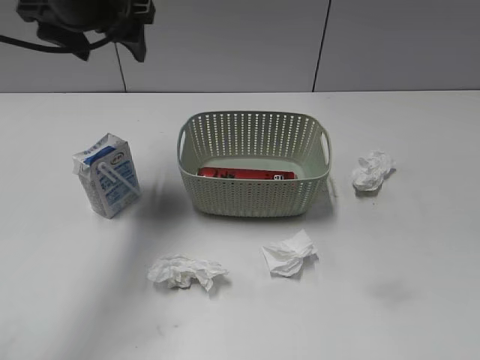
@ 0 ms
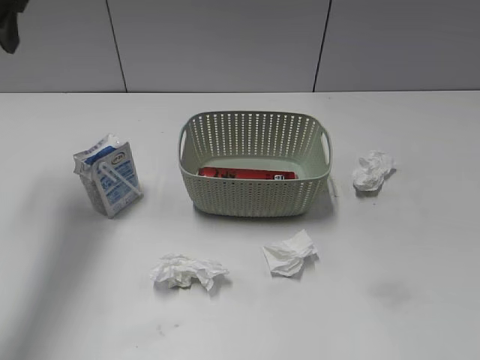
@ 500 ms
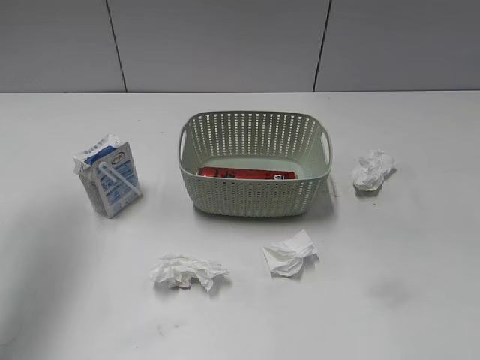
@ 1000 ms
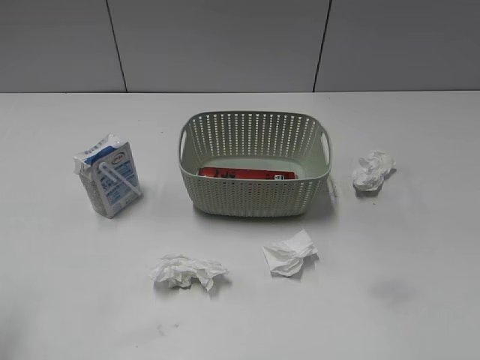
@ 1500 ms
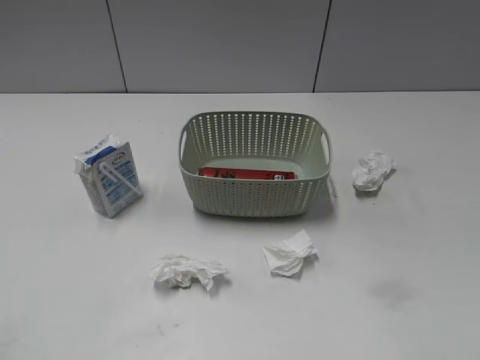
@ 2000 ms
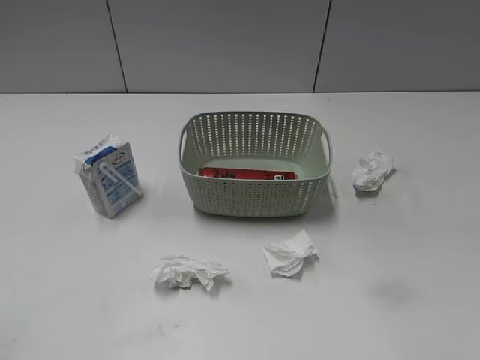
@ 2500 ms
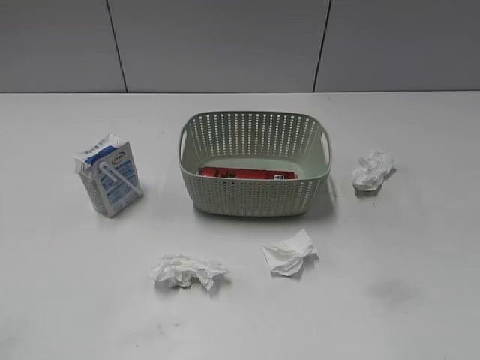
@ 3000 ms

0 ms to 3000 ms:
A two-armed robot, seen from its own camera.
0 ms to 1500 ms: The left gripper moves backward and to the left, some 30 cm.

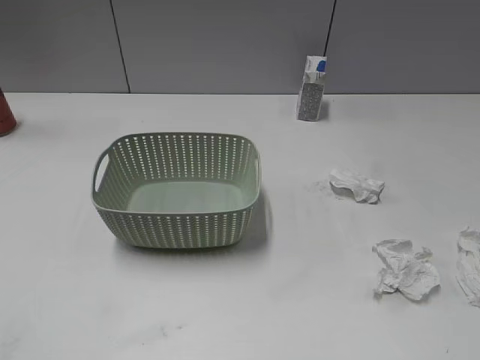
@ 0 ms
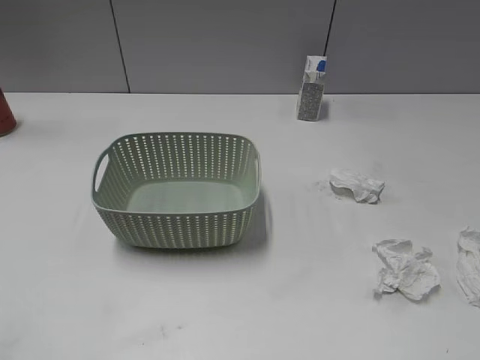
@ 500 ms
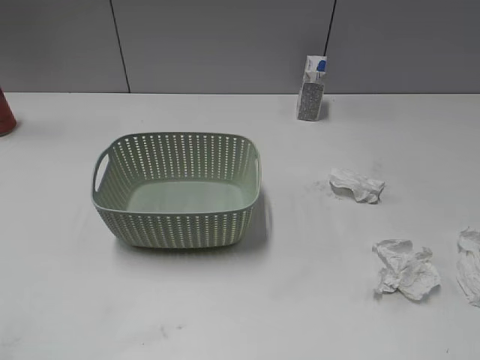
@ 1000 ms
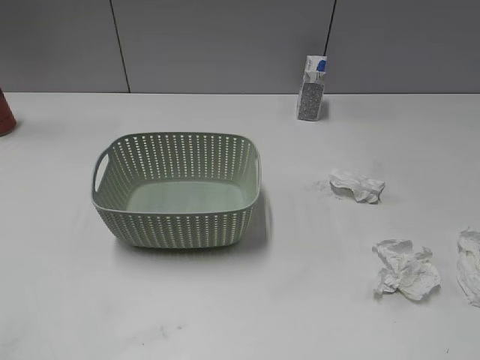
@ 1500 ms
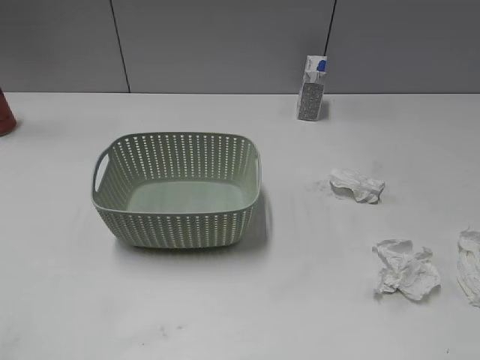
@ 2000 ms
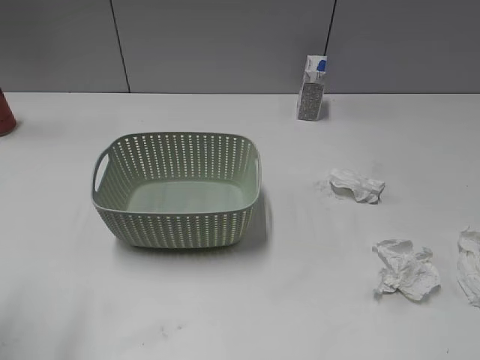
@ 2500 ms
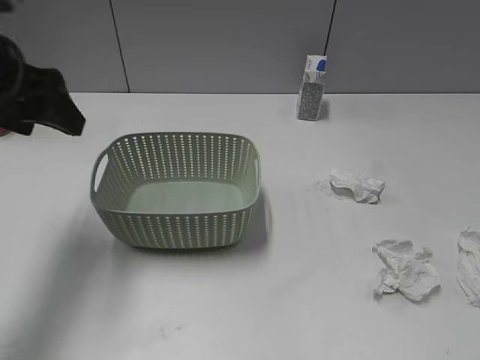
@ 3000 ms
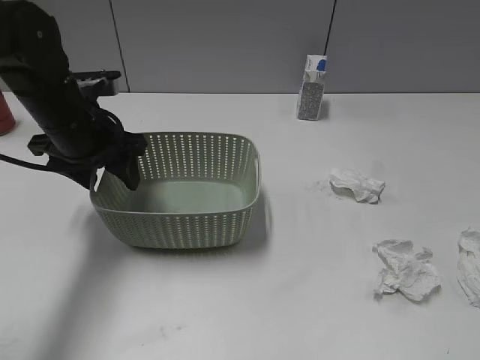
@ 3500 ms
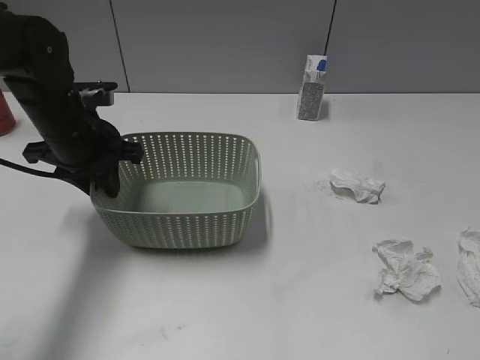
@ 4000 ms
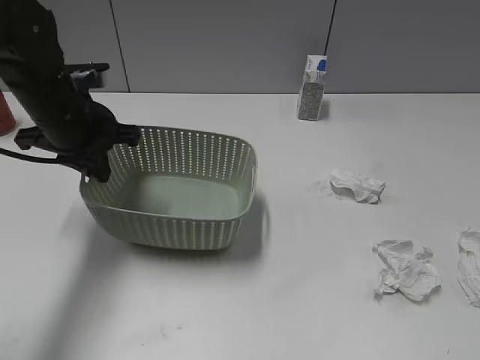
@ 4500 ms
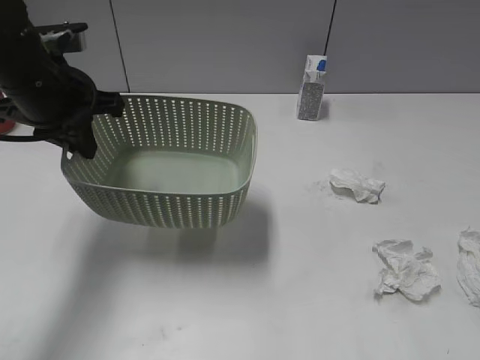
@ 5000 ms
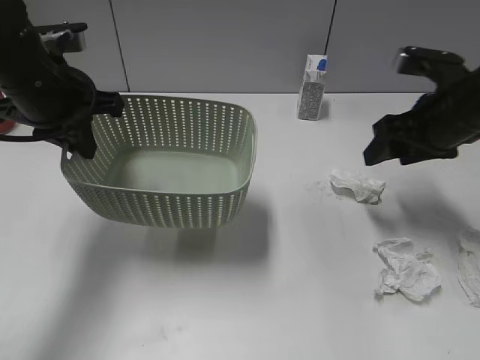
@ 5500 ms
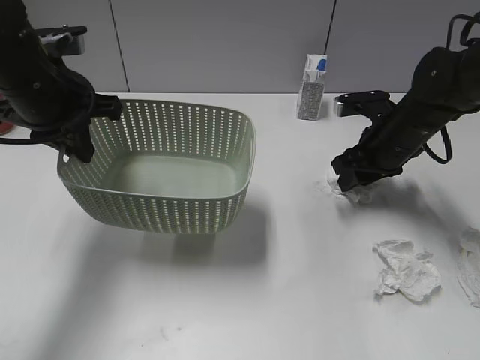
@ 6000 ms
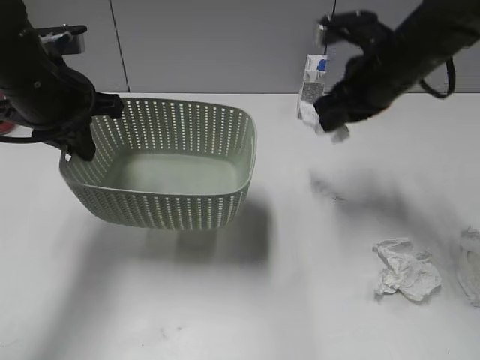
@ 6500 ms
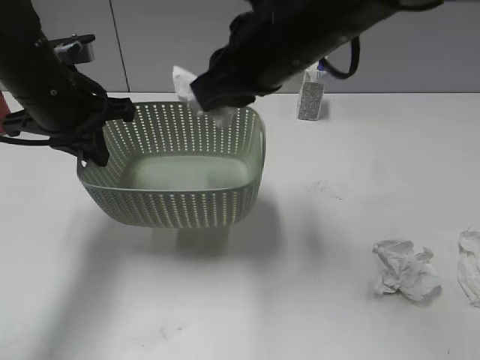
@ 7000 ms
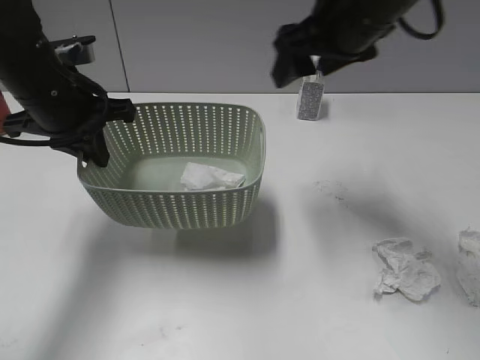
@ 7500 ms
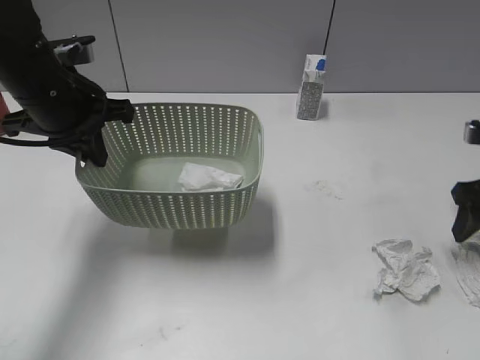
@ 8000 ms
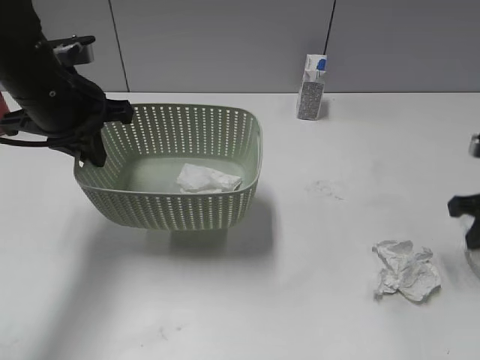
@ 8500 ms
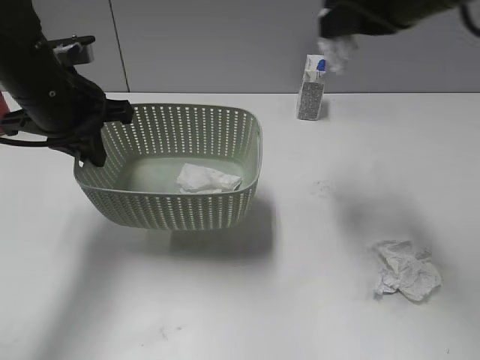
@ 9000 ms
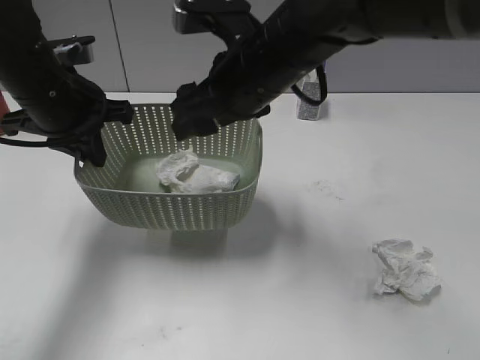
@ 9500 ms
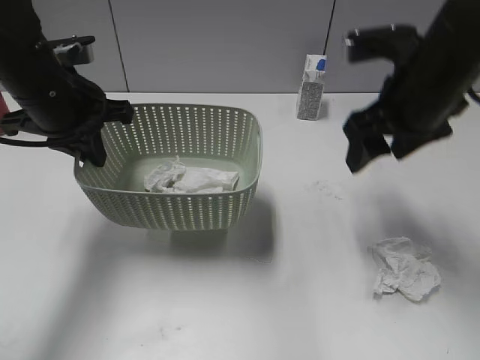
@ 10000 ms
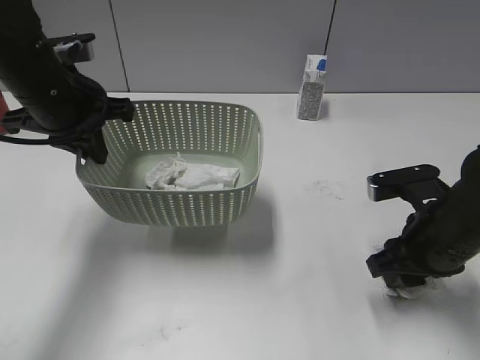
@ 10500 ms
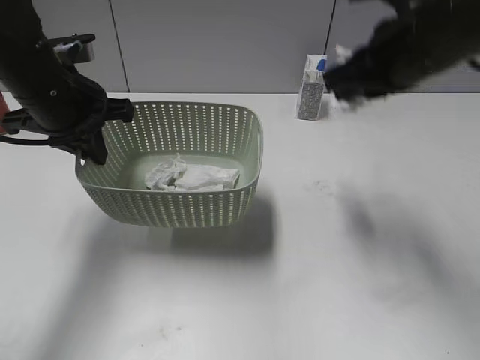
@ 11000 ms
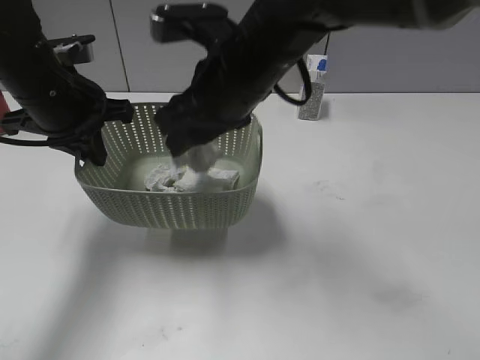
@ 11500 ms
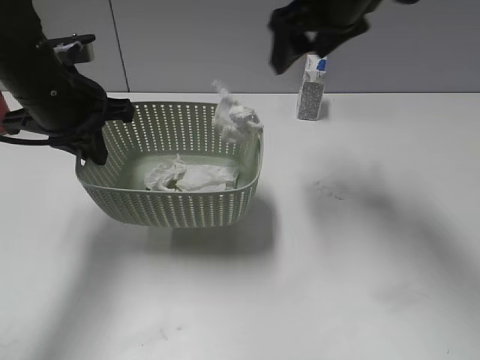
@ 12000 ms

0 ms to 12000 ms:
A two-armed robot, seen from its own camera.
Step, 2500 ms to 4500 ms: Grasp the basket with left gripper.
Step, 5000 ms to 6000 ms: Grasp the waste paper with right gripper.
Step, 6500 ms to 7000 ms: Place the waste paper in the basket with right gripper.
Step, 7500 ms to 8500 ms: Grasp the waste paper with right gripper.
Step, 9000 ms to 9500 ms: Place the waste paper in the basket with right gripper.
Step, 10000 ms to 10500 ms: Grasp the waste paper with right gripper.
Step, 11000 ms to 11500 ms: Place the waste paper in the basket with right gripper.
2000 ms to 4000 ms: The left gripper is displaced forward by some 35 cm.
4000 ms to 6000 ms: The right gripper moves forward, roughly 40 cm. Meanwhile the left gripper shifts roughly 10 cm upward, and closes.
6000 ms to 8000 ms: The right gripper travels to the right and backward by roughly 15 cm, and opens up.
8000 ms to 10000 ms: The right gripper travels to the left and upward by about 15 cm, and closes and opens again.
10000 ms to 12000 ms: The right gripper shifts approximately 10 cm upward and forward, goes to the left and returns, about 20 cm each way, and closes and opens again.

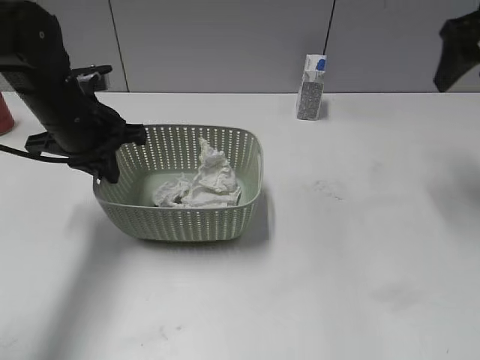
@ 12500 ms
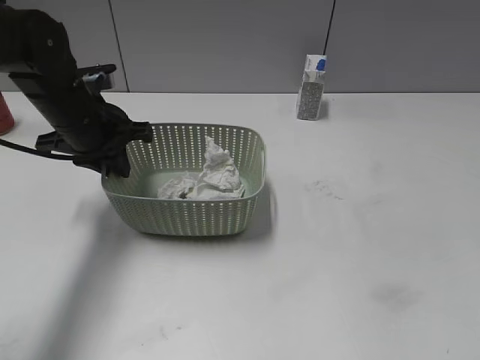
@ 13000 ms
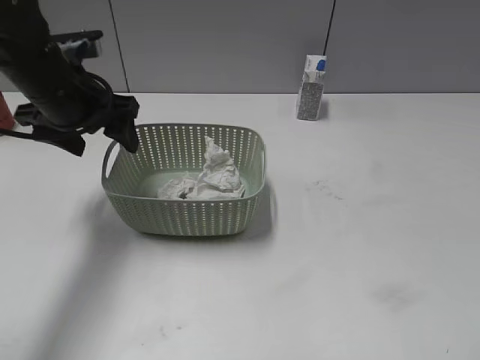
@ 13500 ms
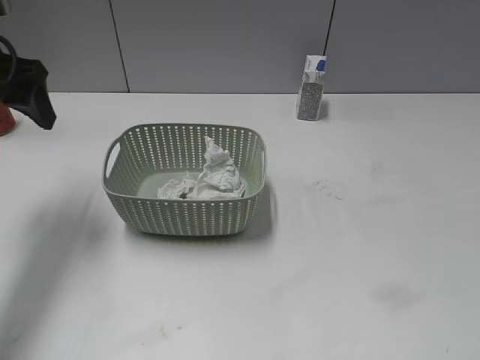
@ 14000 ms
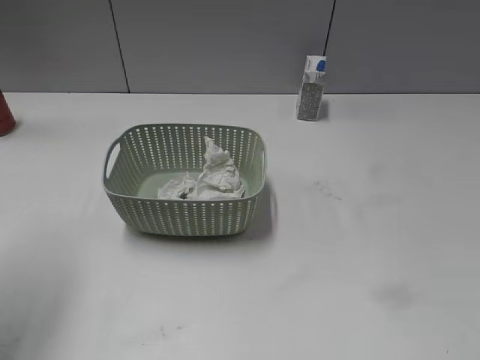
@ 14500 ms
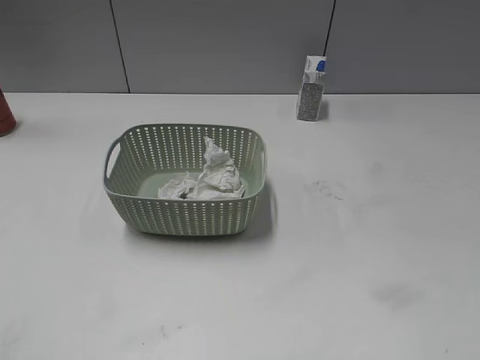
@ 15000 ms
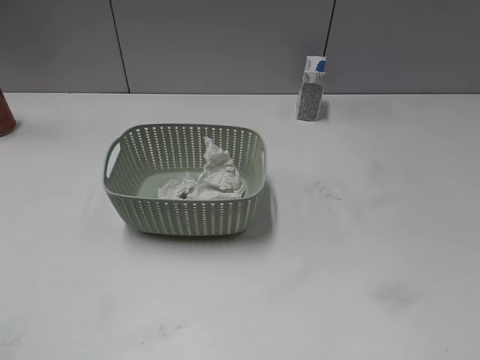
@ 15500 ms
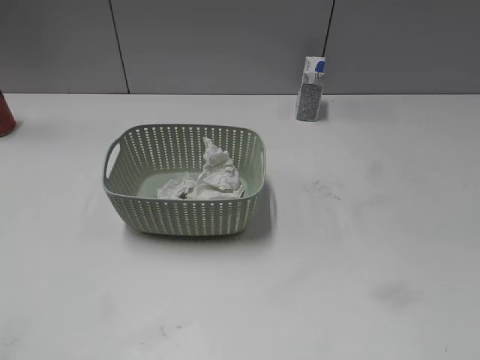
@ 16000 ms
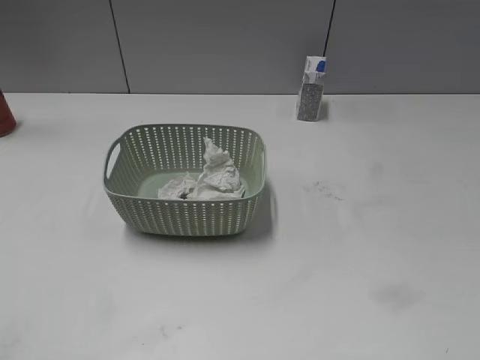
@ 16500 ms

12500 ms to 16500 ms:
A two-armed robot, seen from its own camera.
12500 ms to 14500 ms: The left gripper shifts roughly 25 cm upward, backward and to the left, and opens its fingers. The right gripper shifts roughly 35 cm backward.
14500 ms to 16500 ms: The left gripper goes some 20 cm backward.
